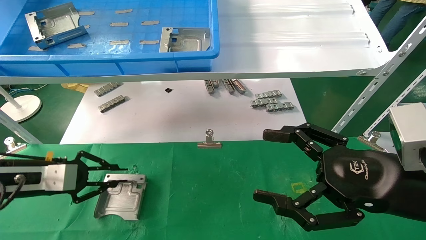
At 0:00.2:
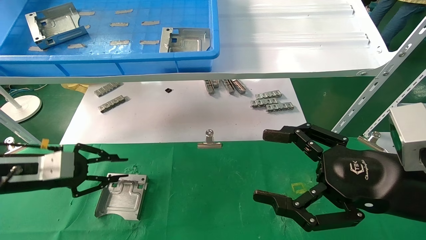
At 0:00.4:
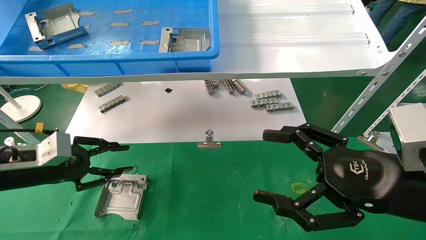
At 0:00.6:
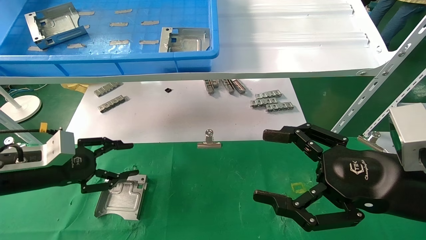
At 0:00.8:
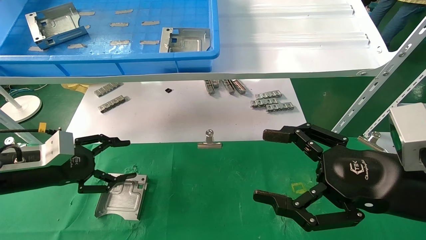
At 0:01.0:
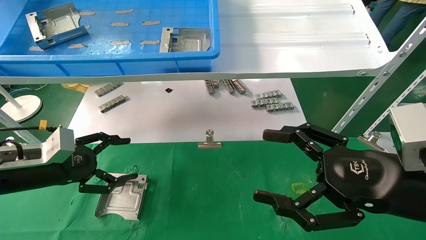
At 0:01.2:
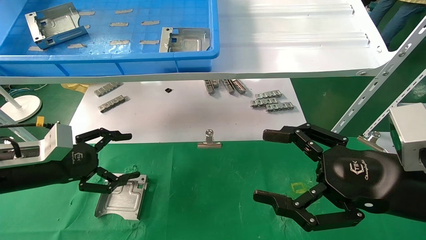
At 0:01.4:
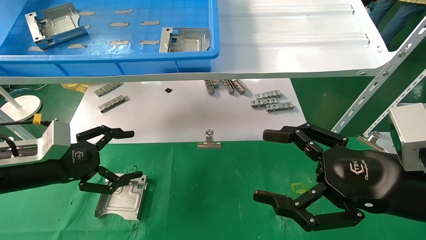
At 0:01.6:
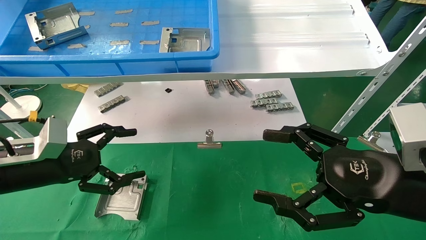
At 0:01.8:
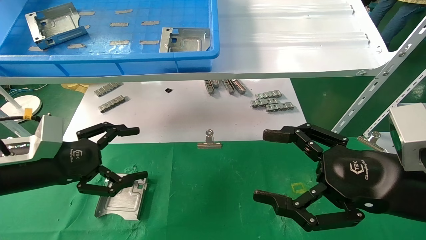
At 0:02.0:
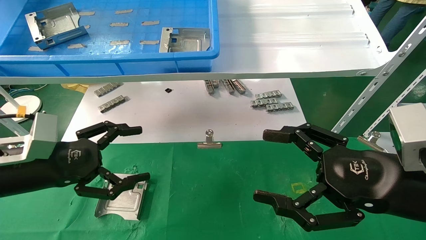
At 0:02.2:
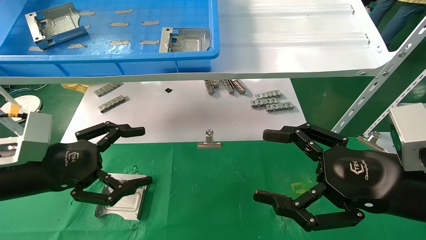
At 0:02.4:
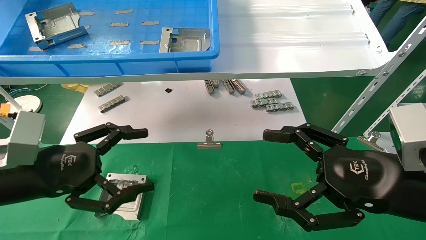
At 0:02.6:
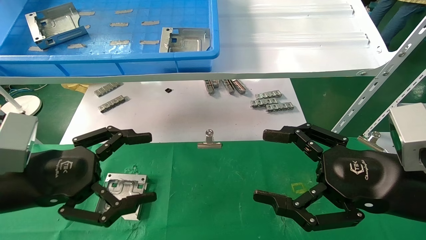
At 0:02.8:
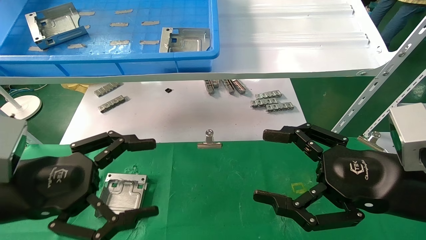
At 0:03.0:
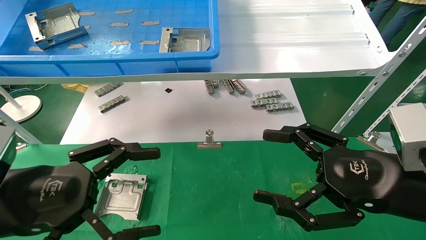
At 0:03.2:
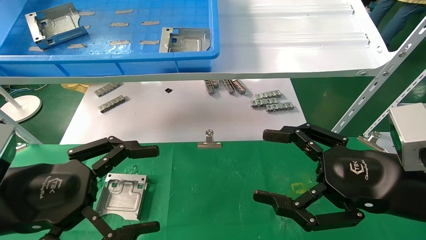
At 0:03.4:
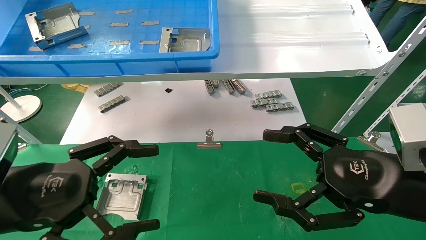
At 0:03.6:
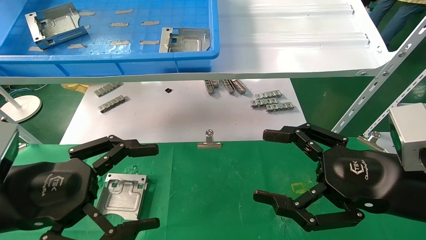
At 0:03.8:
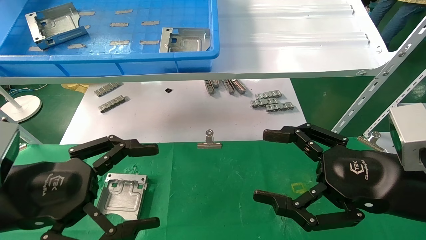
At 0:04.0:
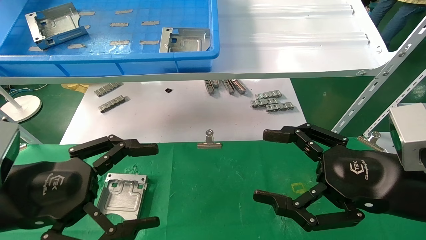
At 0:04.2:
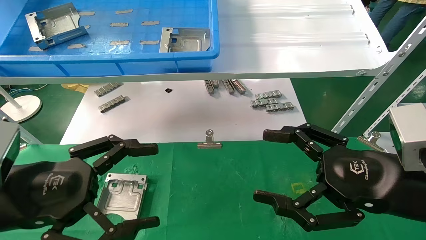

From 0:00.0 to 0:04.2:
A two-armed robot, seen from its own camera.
Task of the whole recording: use the mechanical arm to pick up the parts and place them on the table.
From 0:00.0 to 0:01.4: The left gripper opens its fingers.
From 0:01.4 to 0:02.8: The left gripper is displaced backward and to the right by approximately 15 cm.
From 0:02.8 to 0:04.2: There are only small adjustments of the grippers.

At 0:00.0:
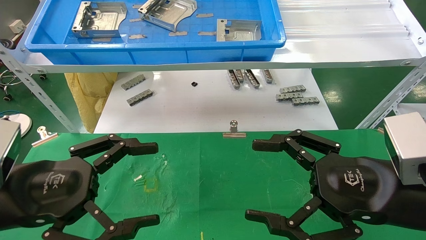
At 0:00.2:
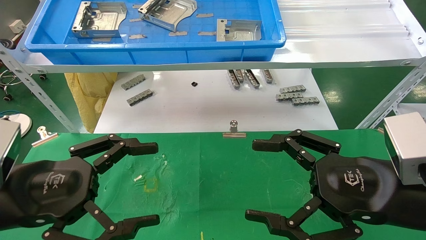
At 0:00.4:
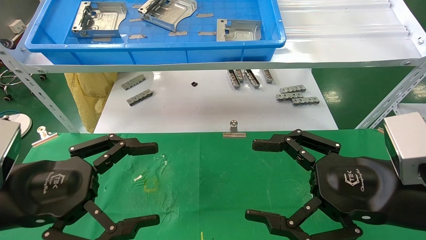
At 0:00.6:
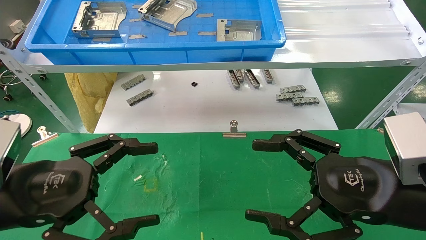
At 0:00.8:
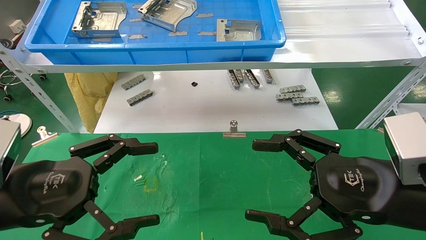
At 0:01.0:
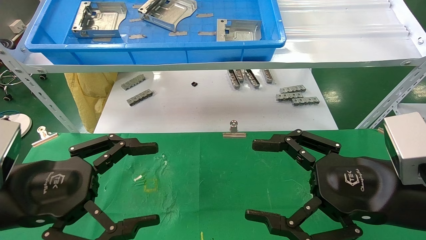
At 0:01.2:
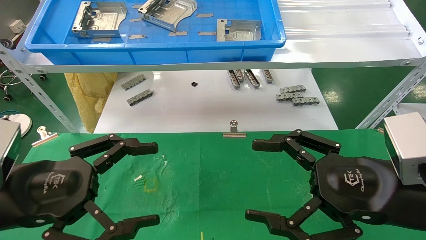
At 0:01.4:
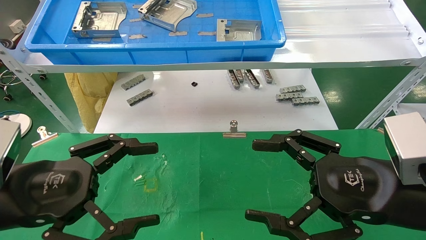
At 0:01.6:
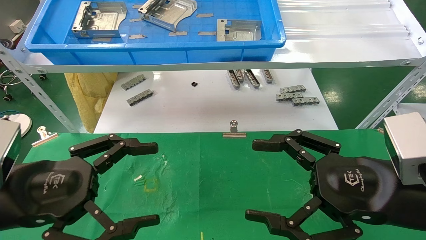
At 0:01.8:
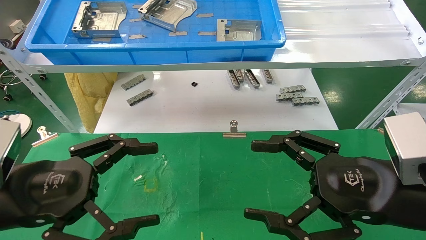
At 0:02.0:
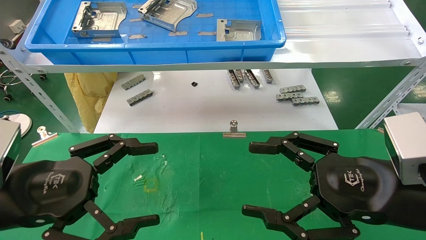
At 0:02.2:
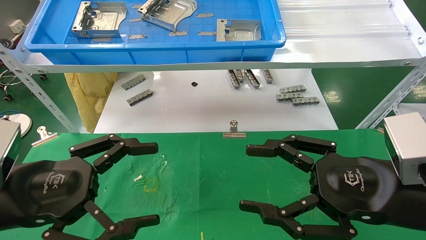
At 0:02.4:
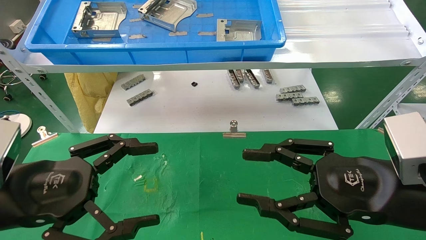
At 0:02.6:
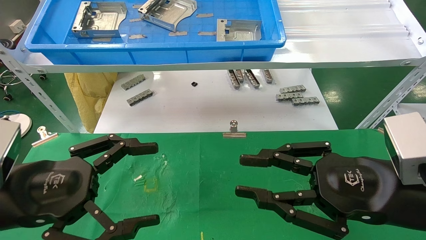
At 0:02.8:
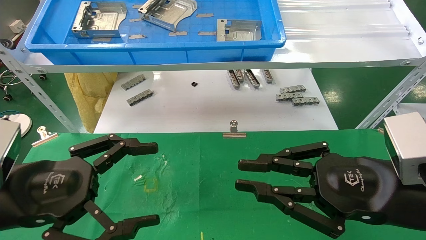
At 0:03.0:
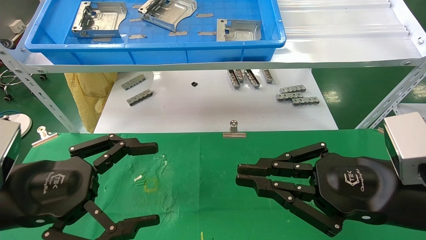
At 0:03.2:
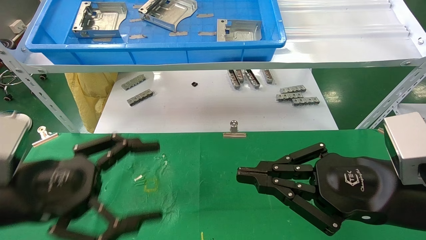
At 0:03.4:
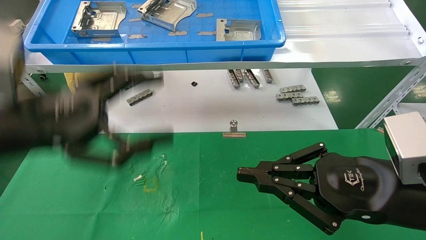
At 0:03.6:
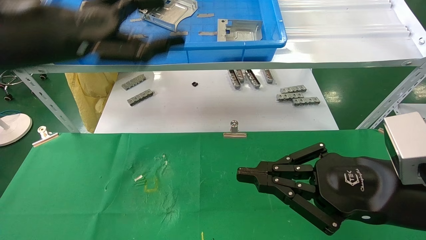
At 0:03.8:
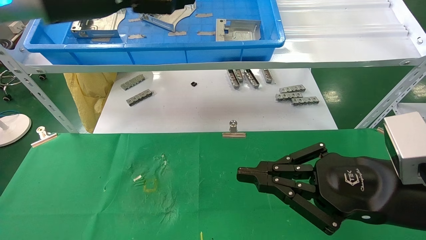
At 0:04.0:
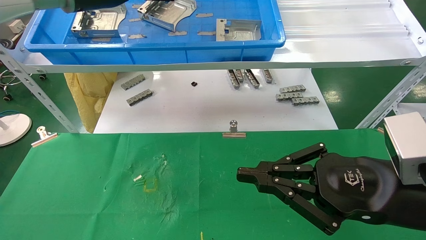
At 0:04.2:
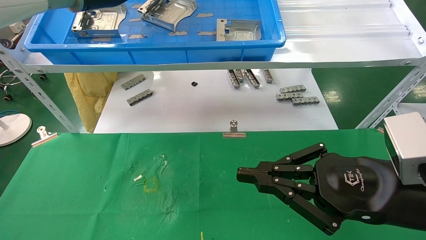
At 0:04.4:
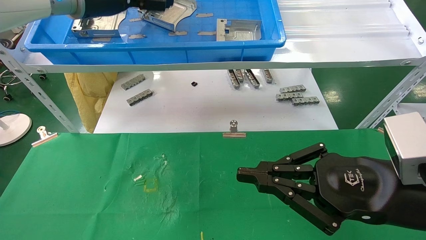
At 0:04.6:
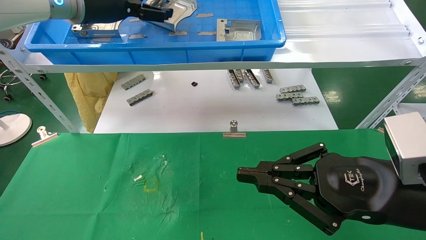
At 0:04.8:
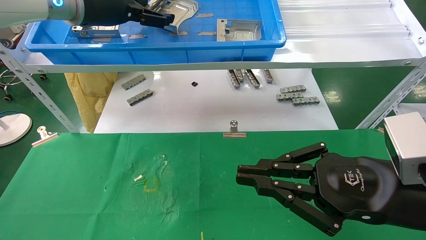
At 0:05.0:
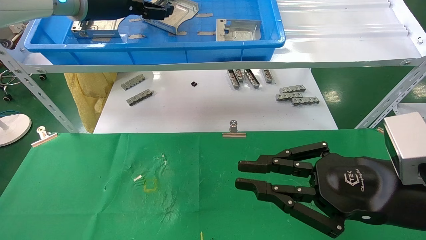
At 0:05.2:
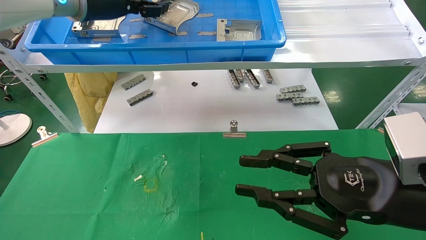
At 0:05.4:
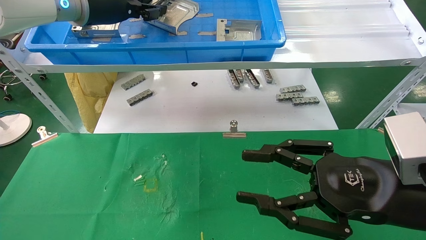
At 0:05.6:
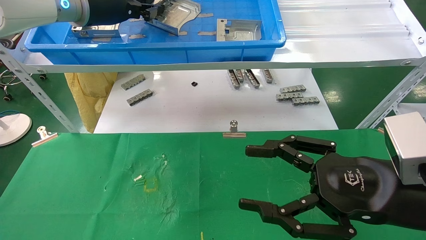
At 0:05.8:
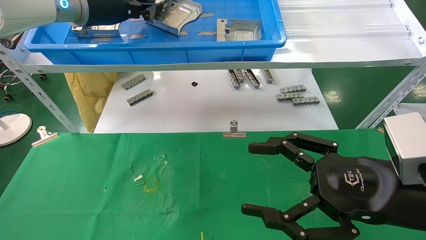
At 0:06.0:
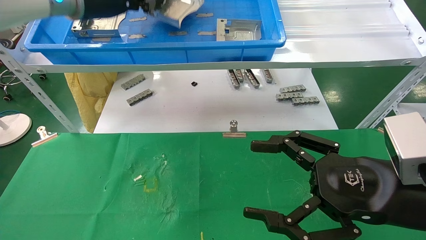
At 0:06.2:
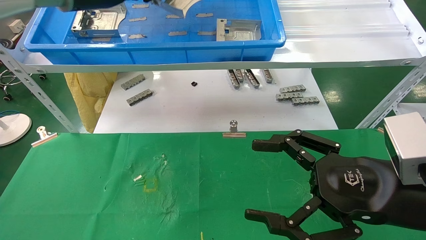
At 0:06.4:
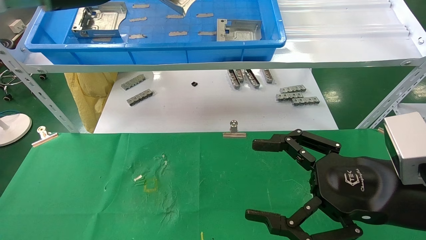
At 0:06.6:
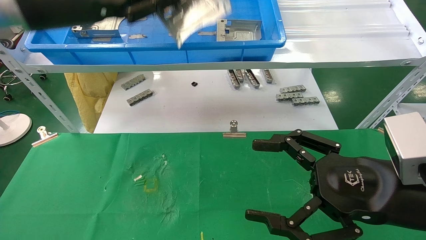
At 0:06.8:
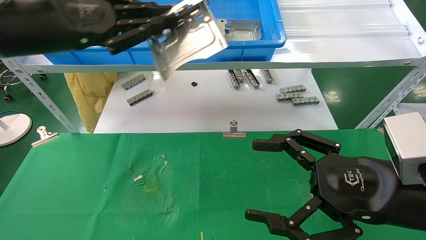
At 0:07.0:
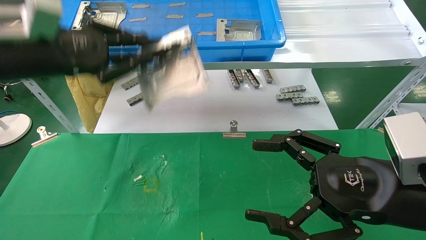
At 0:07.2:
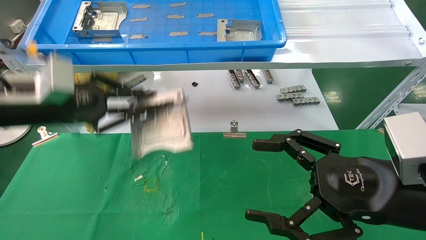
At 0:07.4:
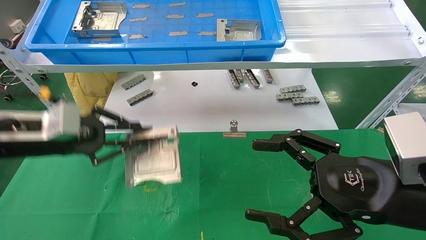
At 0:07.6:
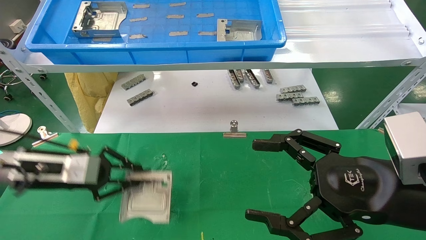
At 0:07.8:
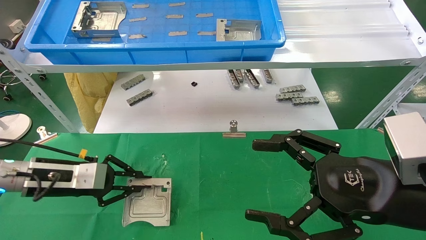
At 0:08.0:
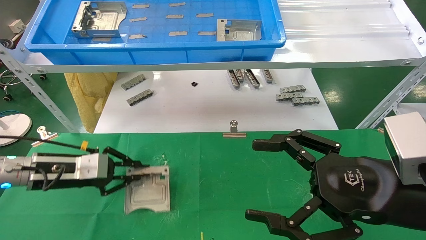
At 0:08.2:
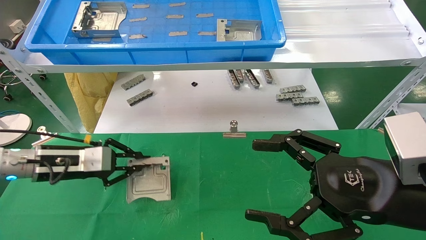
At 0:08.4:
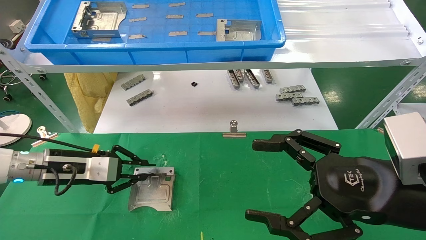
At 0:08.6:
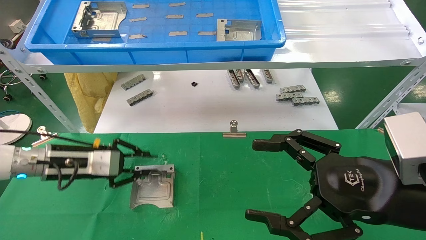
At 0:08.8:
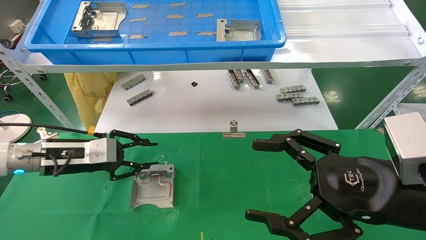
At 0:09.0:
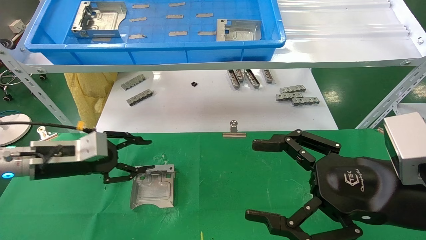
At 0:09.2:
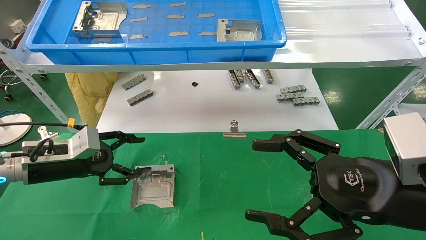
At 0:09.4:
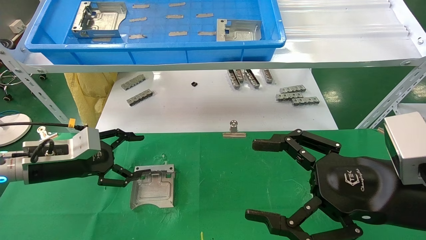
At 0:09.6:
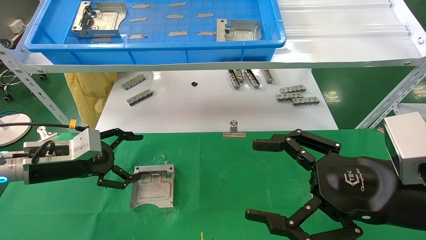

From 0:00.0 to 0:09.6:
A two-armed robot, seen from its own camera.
Task of the whole recording: use the mechanical arm to pick up the parts and place them on the table.
Step, from 0:03.6 to 0:05.6: Pick up the hard drive bracket from the feeding area.
Step, from 0:05.8 to 0:08.6: Place the hard drive bracket into the box.
From 0:00.0 to 0:01.6: Neither gripper changes place.
From 0:01.6 to 0:03.2: The right gripper closes its fingers.
From 0:03.2 to 0:04.8: The left gripper shifts about 30 cm forward and upward.
From 0:04.8 to 0:06.4: The right gripper opens; the left gripper heads backward, covering approximately 5 cm, and closes its fingers.
From 0:06.4 to 0:08.0: The left gripper goes some 30 cm downward.
From 0:08.0 to 0:09.6: The left gripper opens.

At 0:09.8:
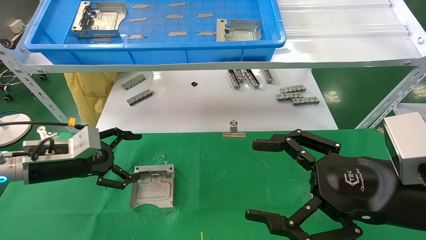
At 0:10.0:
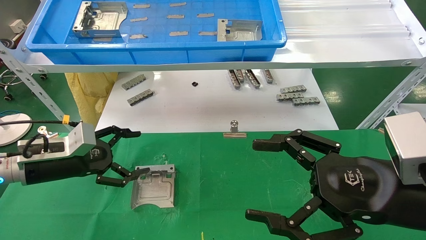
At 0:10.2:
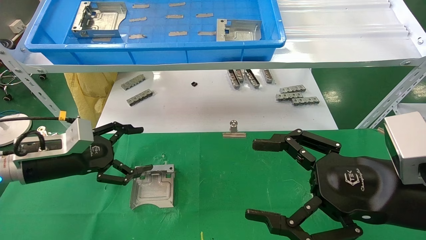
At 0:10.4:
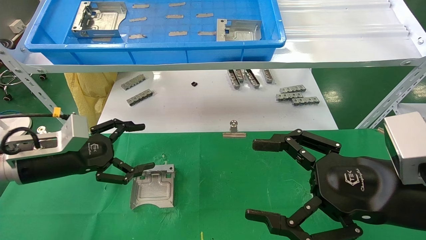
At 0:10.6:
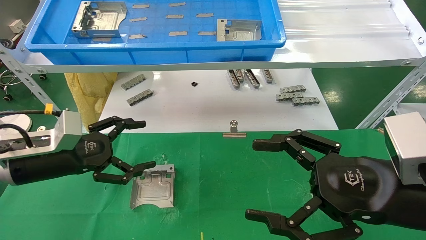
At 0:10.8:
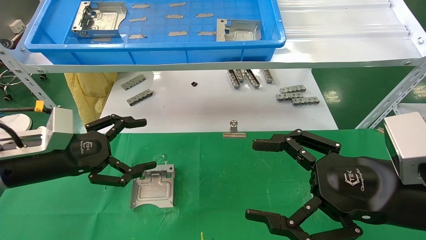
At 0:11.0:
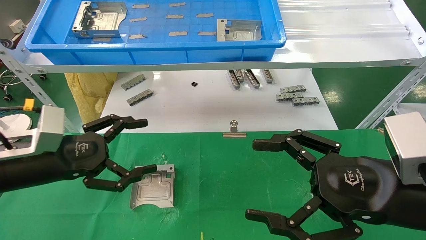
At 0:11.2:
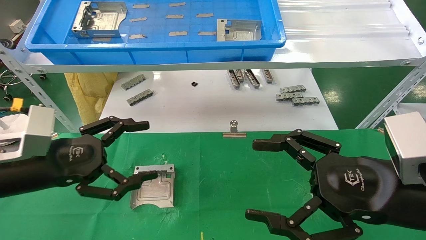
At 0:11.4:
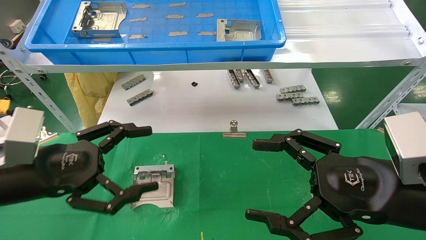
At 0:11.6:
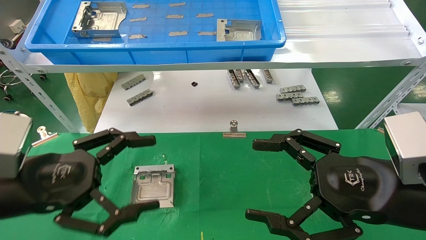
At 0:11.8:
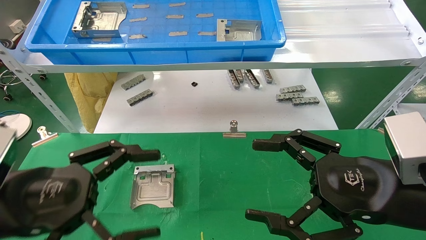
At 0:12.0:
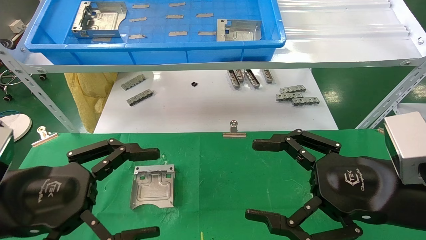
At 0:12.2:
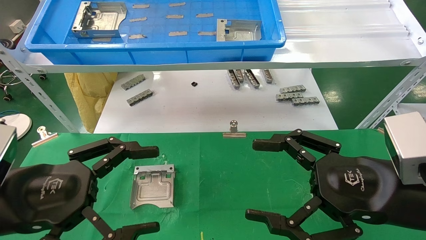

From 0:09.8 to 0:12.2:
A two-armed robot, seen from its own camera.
Task of the whole recording: use the mechanical arm to pick up the parts and place them on the table.
From 0:09.8 to 0:11.0: The left gripper shifts approximately 5 cm backward.
From 0:11.0 to 0:12.2: The left gripper goes roughly 10 cm backward.
